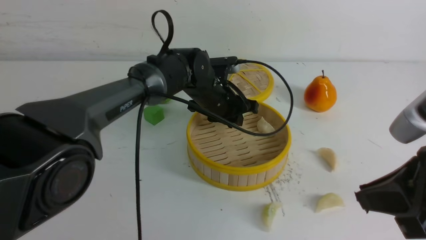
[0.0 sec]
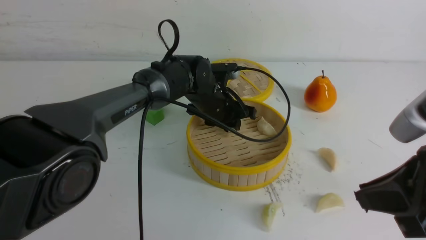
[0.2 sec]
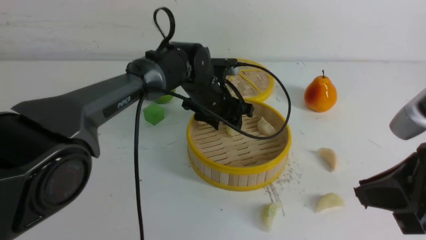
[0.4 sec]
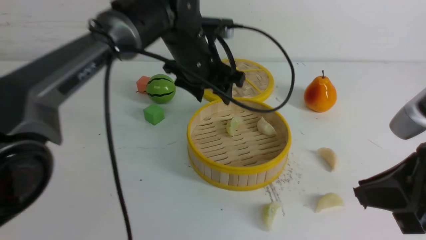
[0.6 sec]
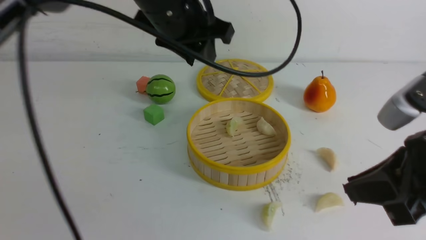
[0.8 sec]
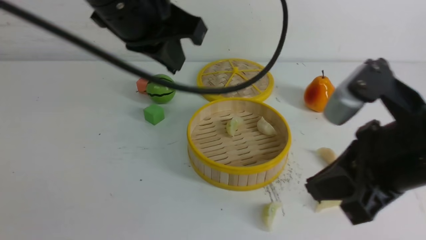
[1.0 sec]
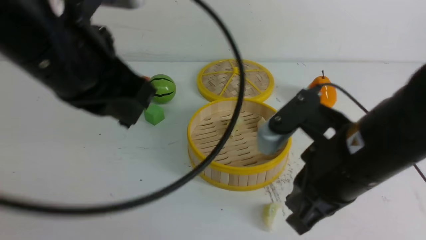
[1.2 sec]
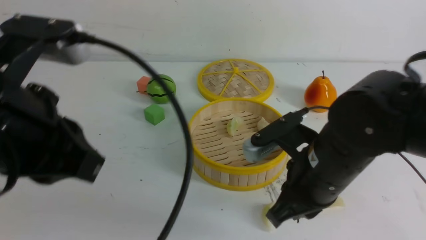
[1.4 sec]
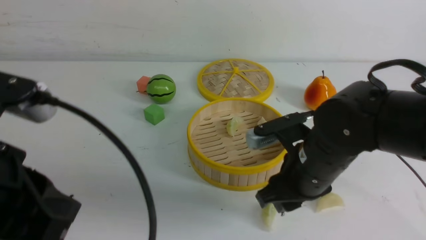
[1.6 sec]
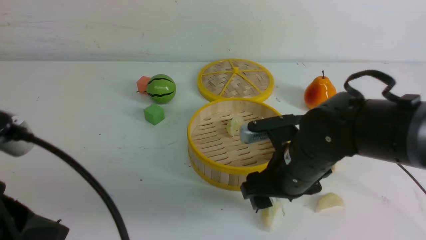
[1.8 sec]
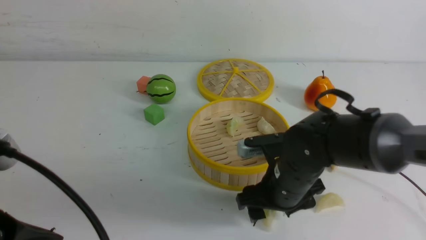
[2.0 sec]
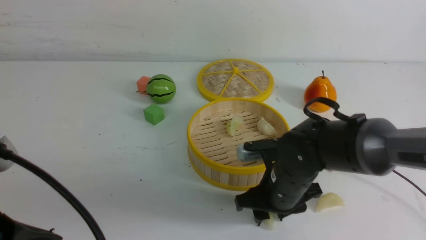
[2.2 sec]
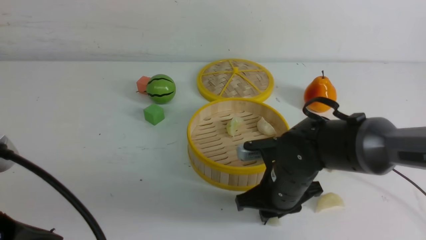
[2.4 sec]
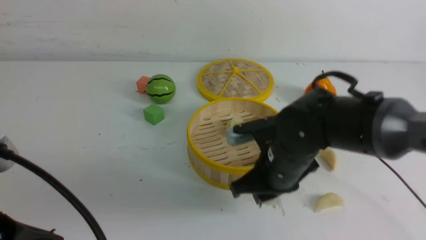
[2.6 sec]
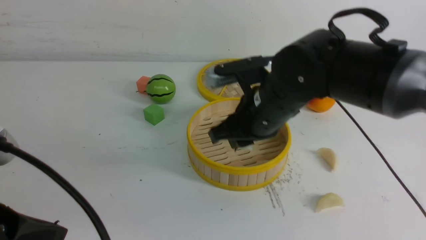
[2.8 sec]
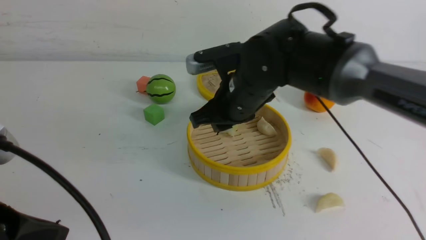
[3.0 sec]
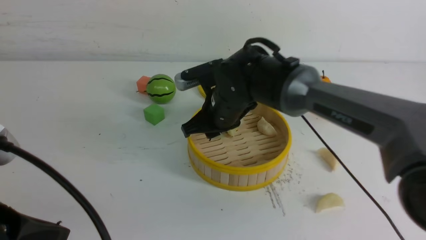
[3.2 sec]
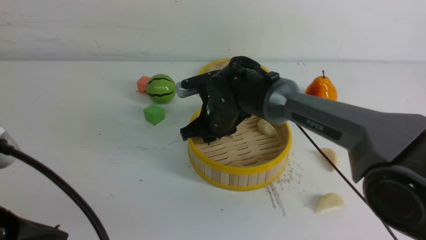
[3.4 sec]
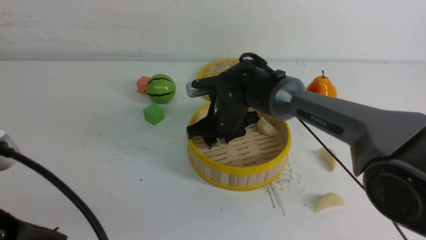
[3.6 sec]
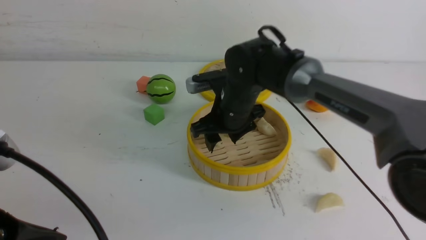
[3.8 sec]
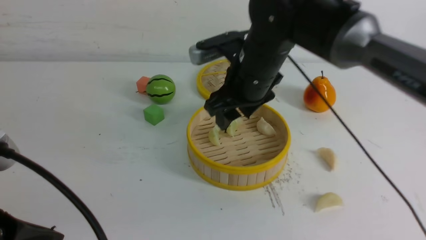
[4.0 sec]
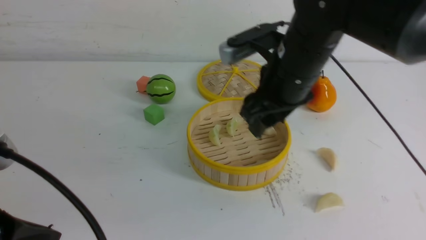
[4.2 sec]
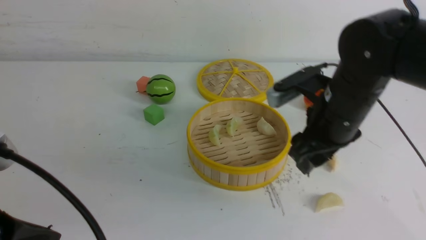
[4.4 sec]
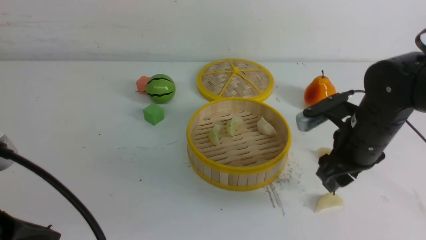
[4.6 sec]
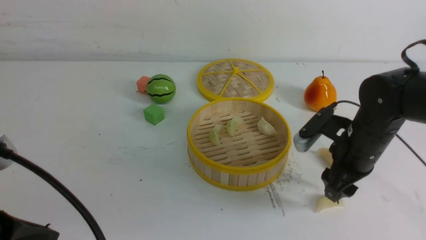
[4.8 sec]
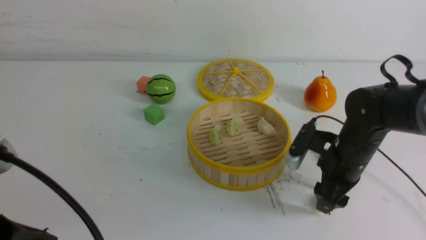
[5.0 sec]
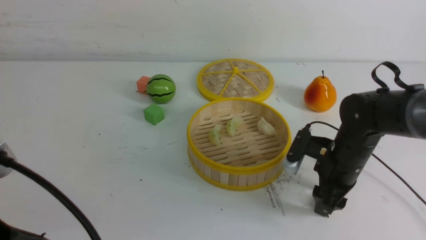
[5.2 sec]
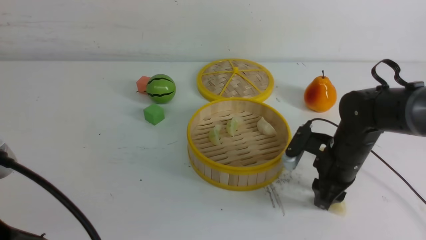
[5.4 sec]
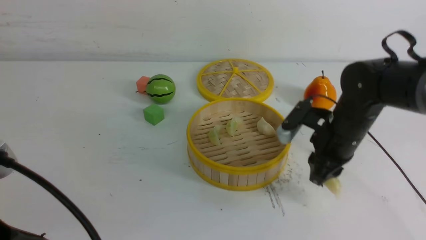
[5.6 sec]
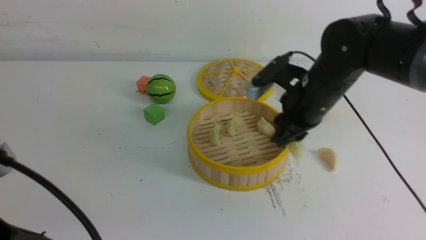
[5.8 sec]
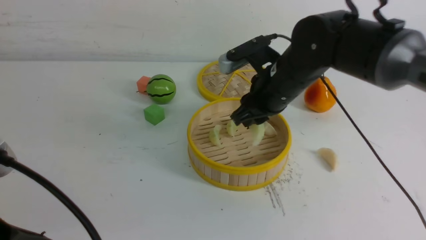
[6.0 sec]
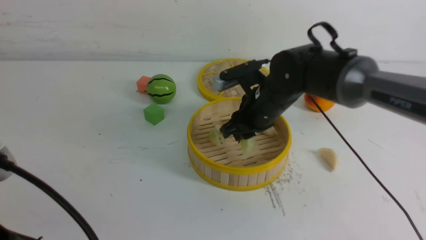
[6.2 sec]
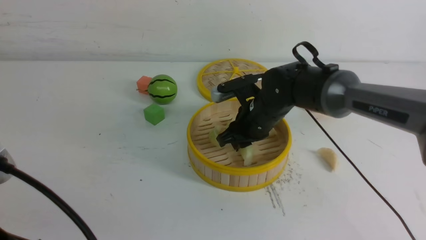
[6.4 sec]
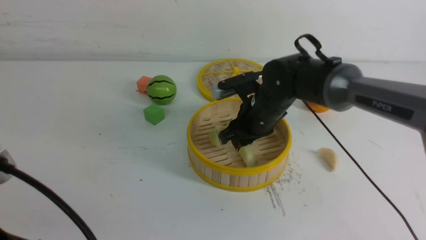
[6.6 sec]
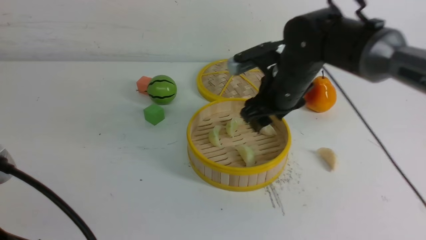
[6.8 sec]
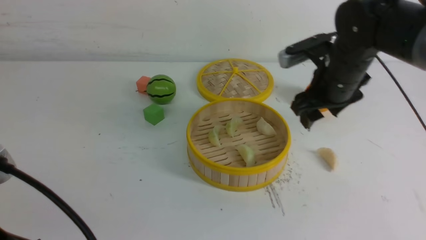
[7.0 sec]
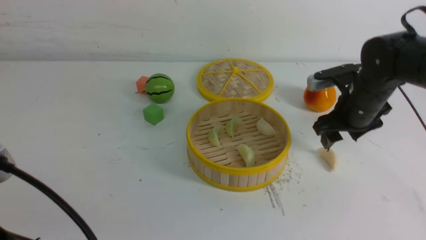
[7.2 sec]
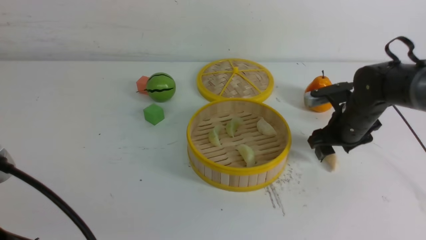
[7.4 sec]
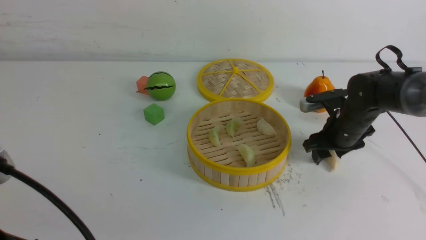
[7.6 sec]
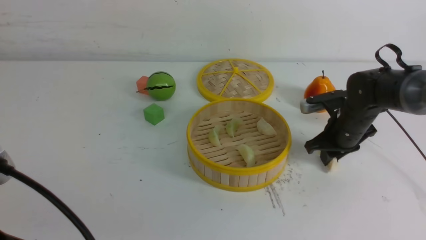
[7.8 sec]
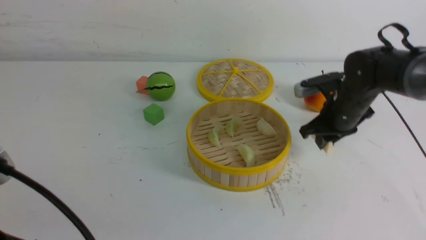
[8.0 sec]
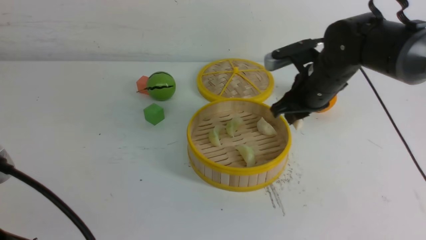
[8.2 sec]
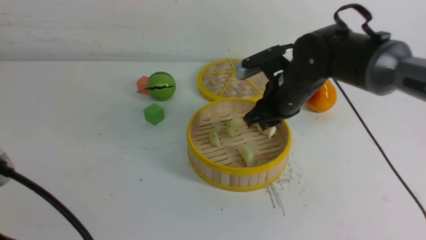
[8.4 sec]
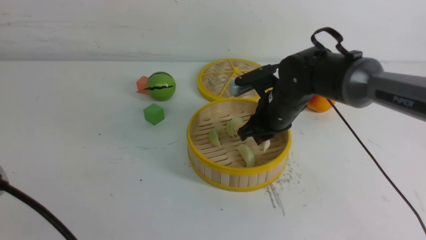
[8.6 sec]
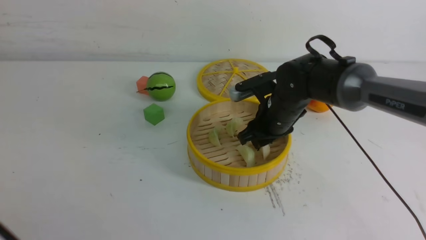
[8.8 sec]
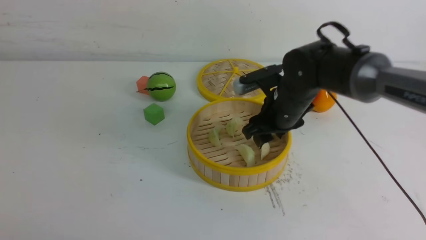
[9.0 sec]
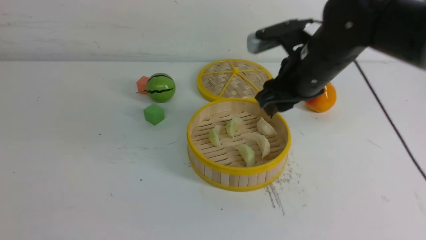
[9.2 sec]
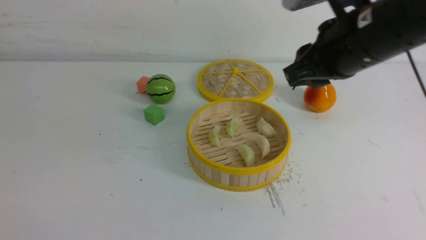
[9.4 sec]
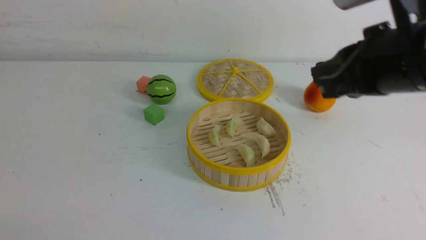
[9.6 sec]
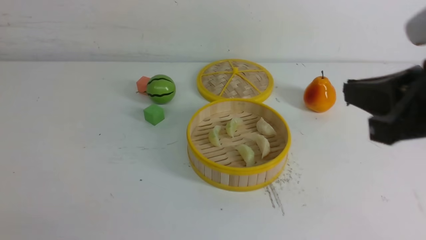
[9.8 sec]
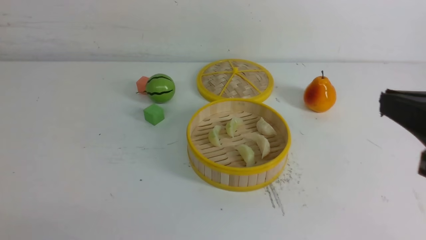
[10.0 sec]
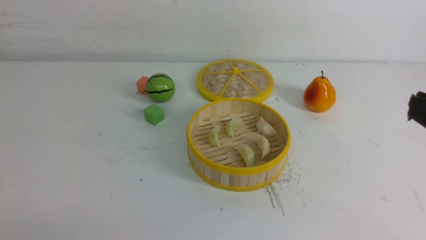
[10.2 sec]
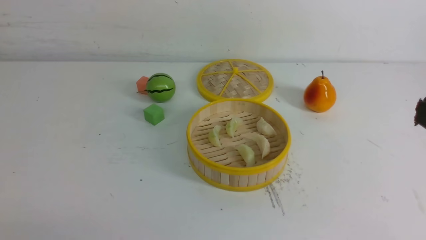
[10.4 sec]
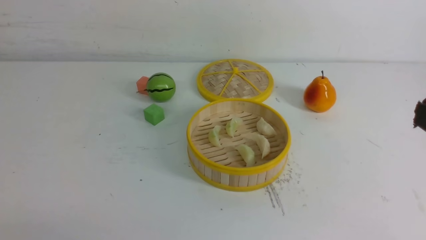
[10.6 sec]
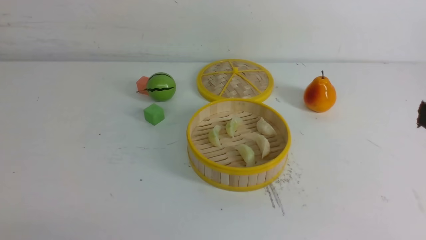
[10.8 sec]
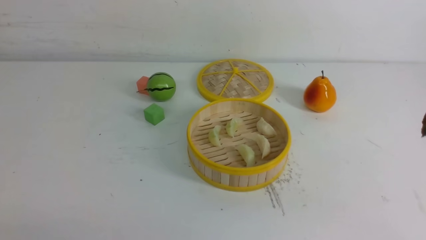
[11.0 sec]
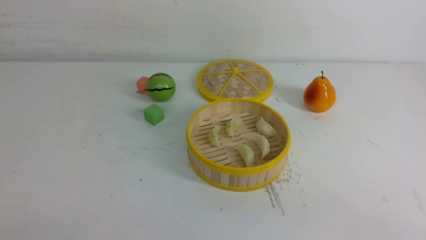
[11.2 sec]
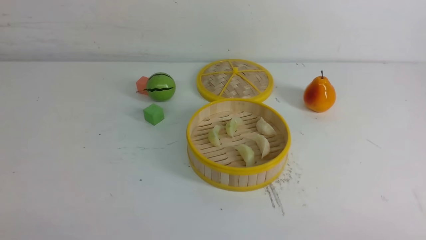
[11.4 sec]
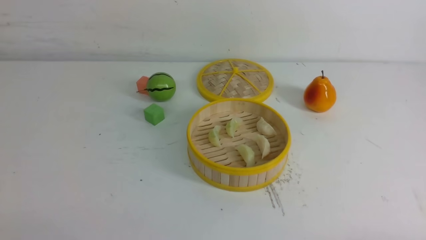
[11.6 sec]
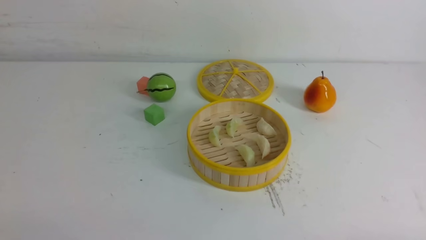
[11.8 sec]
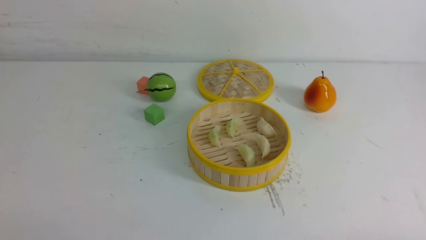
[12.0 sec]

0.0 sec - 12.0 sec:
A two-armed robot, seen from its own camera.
Task of the whole recording: put the dumplings into the steamer on the white table.
Step, 0.4 sec - 2.4 sec: use the right arm to grab a dumpling.
Step, 2.6 sec - 3.6 sec: use the right arm to put the dumpling into the steamer.
Step, 3.8 sec - 5.4 sec: use the right arm to grab a dumpling.
Step, 5.6 sec - 6.6 sec: use the right arm to put the dumpling into the steamer.
Step, 6.8 sec - 7.8 sec: use the right arm to grab a dumpling.
Step, 8.0 sec - 8.8 sec: use the right arm to put the dumpling into the steamer.
0.0 sec - 1.6 sec: The right gripper heads to the left, forward and downward, covering about 15 cm. The left gripper shifts approximately 35 cm backward, to the left and upward, and closes its fingers.
1.6 sec - 3.0 sec: The left gripper moves some 5 cm. The right gripper goes some 10 cm forward and to the left, reaches approximately 10 cm downward, then returns, and opens and closes again.
3.0 sec - 4.4 sec: The right gripper moves to the right, about 10 cm, and opens.
4.4 sec - 6.0 sec: The right gripper travels downward and back again, roughly 15 cm each way, and closes up.
6.0 sec - 7.6 sec: The right gripper is displaced to the right and downward by about 15 cm, and opens.
7.6 sec - 9.0 sec: The right gripper shifts roughly 15 cm to the left and upward. Meanwhile the left gripper shifts by about 5 cm.
9.0 sec - 10.4 sec: The right gripper is displaced backward, upward and to the right by roughly 35 cm, and closes up; the left gripper heads downward, covering approximately 5 cm.

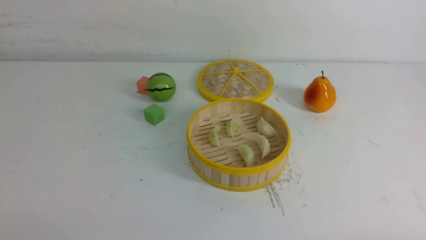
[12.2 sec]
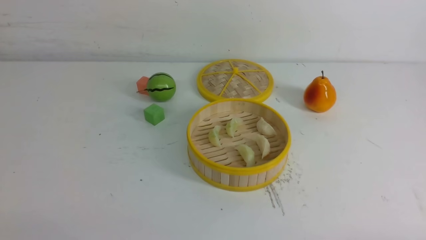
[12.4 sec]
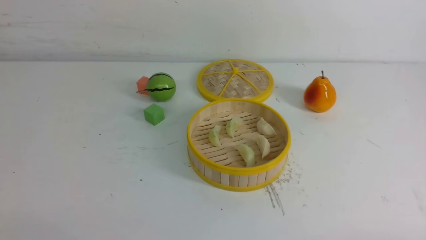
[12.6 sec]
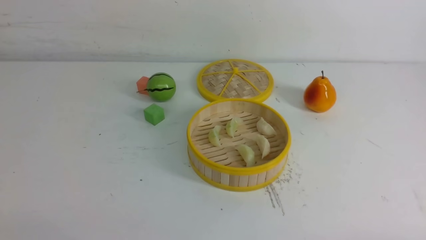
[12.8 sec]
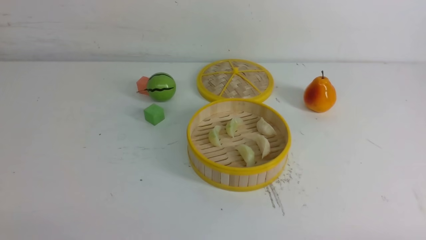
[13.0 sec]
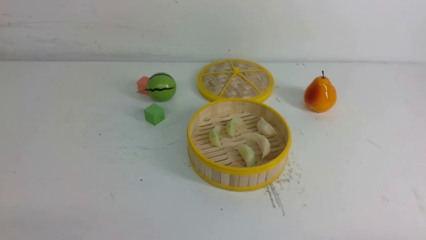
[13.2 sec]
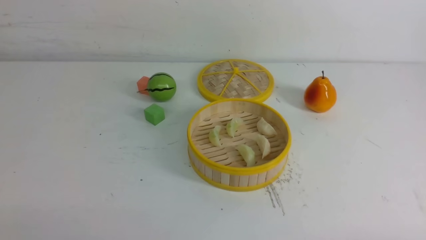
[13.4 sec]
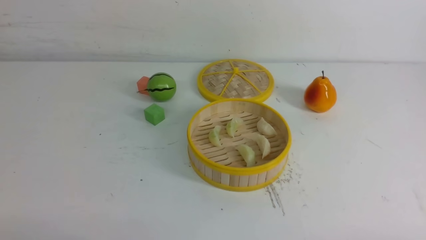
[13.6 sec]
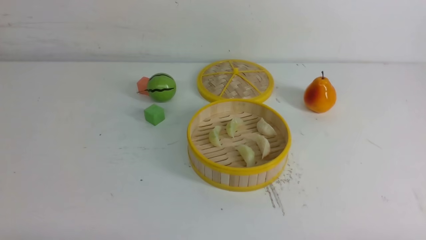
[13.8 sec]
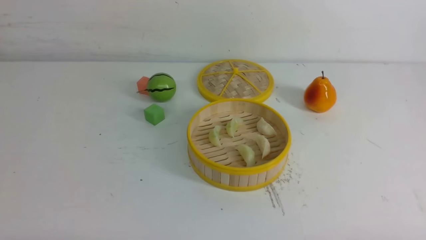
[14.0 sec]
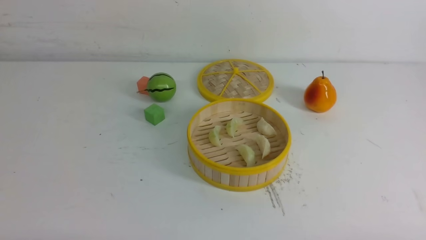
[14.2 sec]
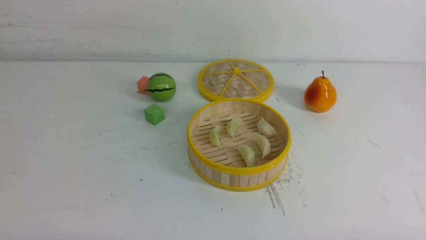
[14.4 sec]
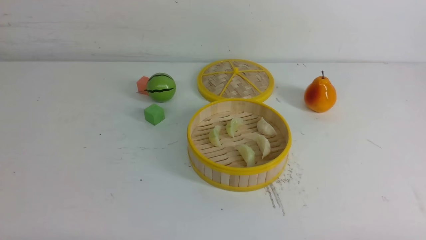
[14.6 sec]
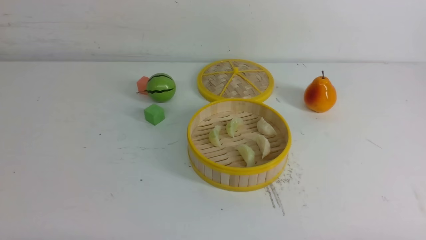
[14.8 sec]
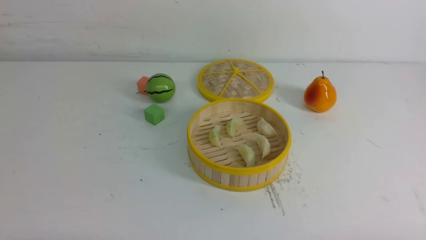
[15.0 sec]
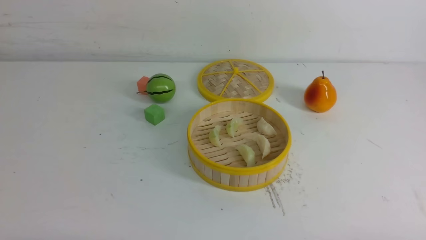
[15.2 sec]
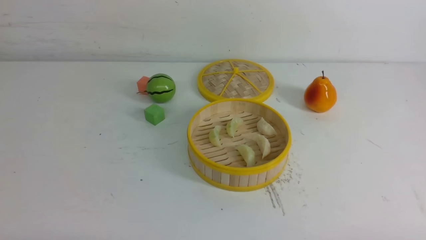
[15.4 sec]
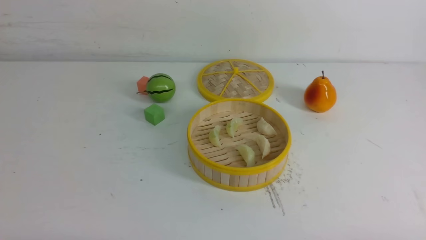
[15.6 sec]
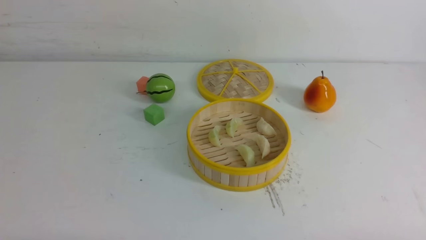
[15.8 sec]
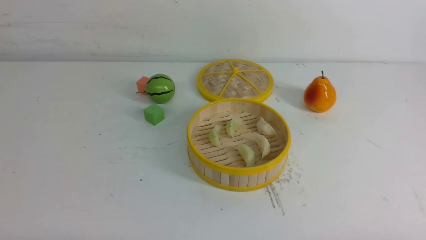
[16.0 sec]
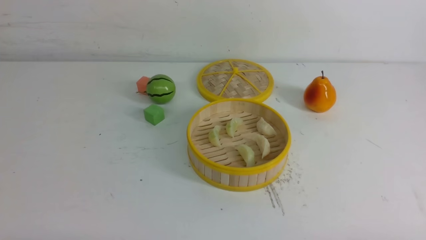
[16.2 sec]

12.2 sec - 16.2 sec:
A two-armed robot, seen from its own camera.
Task of the whole recording: put the dumplings into the steamer on the white table.
14.8 sec - 16.2 sec: Neither gripper changes place.
